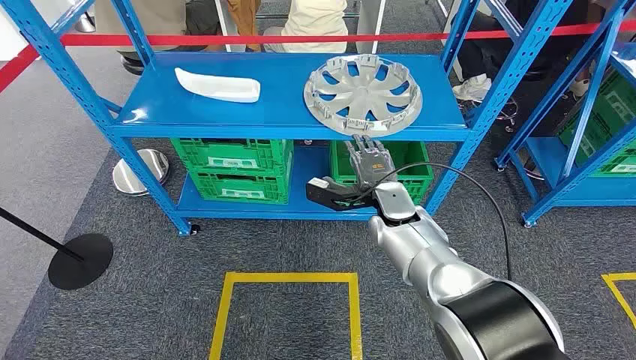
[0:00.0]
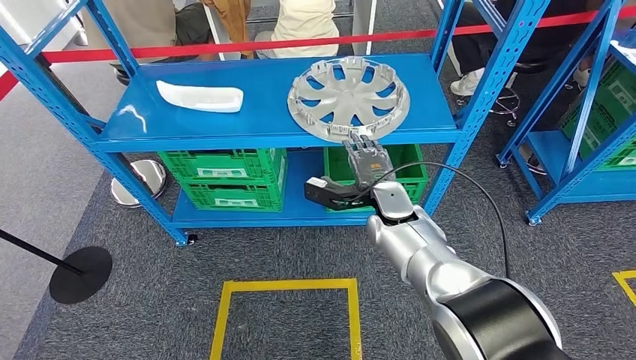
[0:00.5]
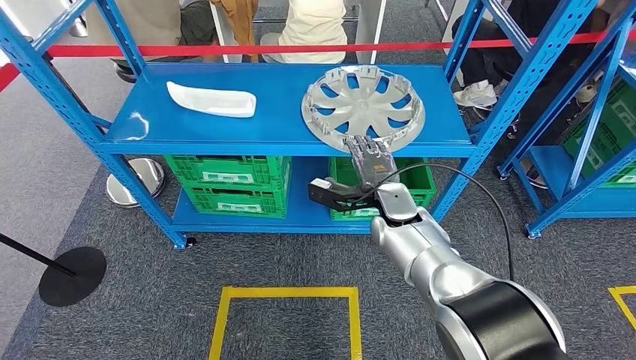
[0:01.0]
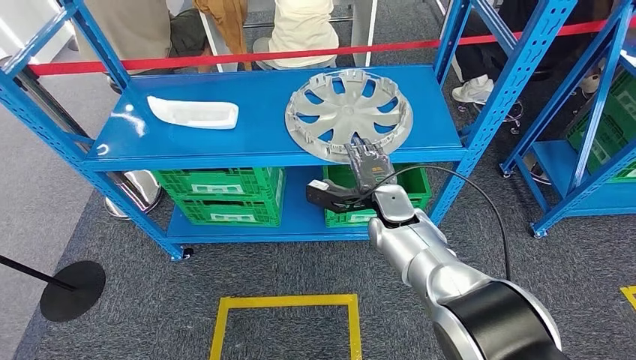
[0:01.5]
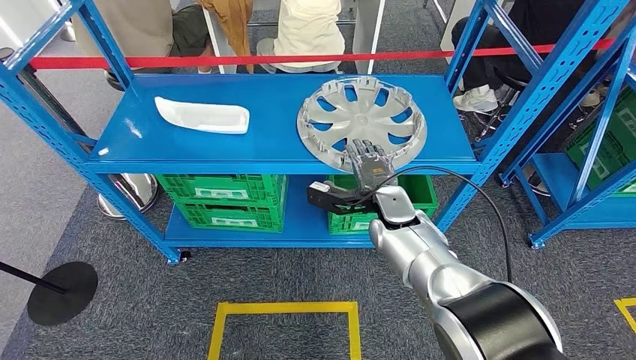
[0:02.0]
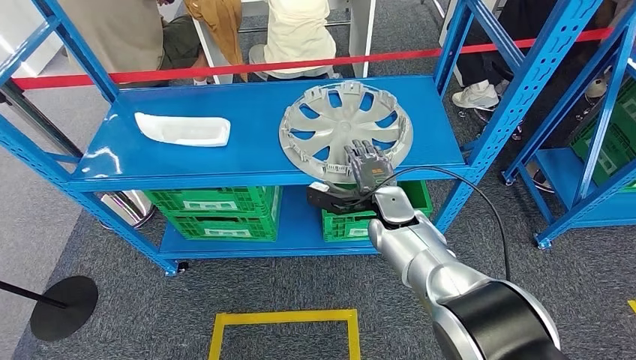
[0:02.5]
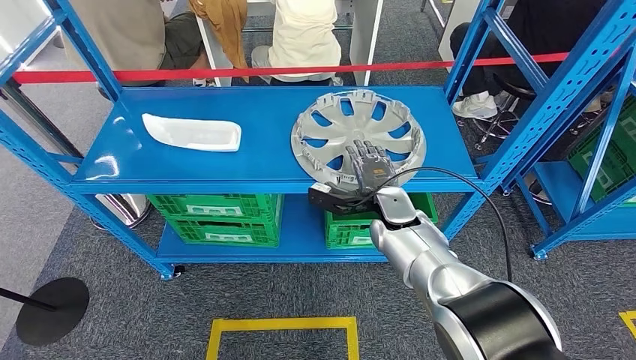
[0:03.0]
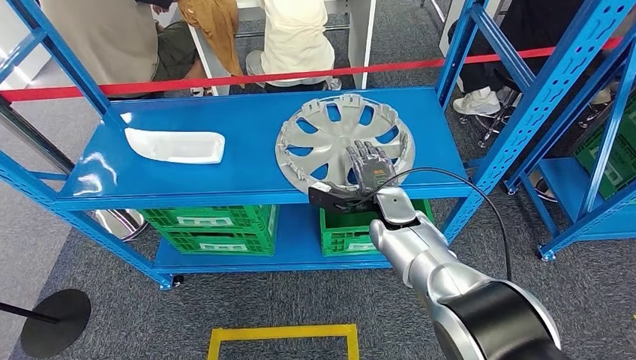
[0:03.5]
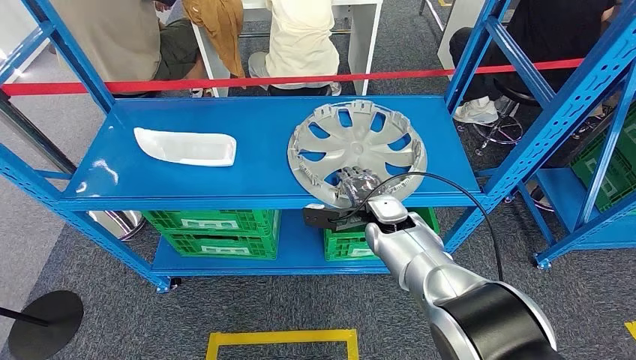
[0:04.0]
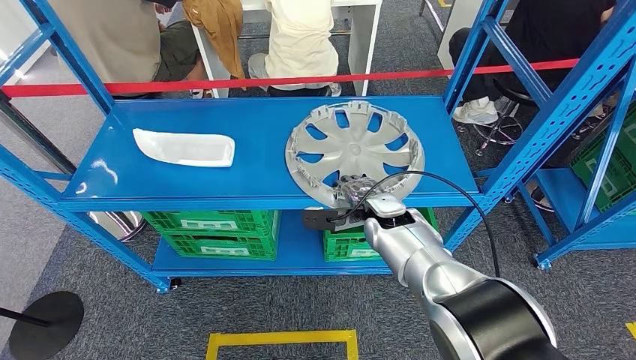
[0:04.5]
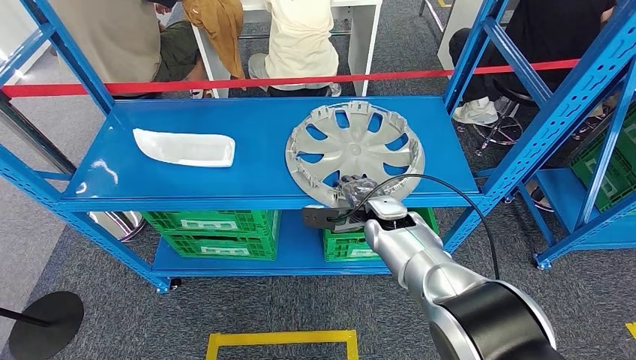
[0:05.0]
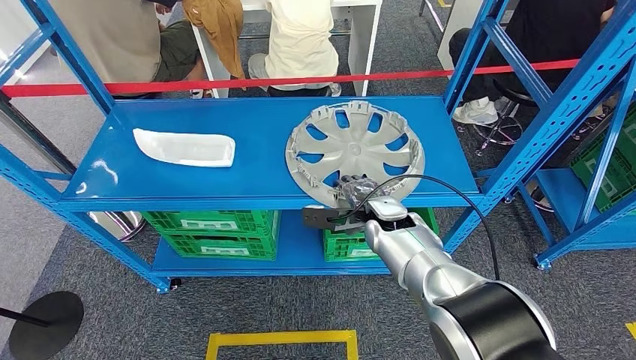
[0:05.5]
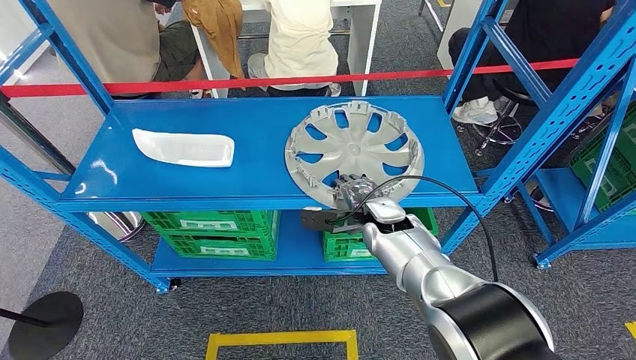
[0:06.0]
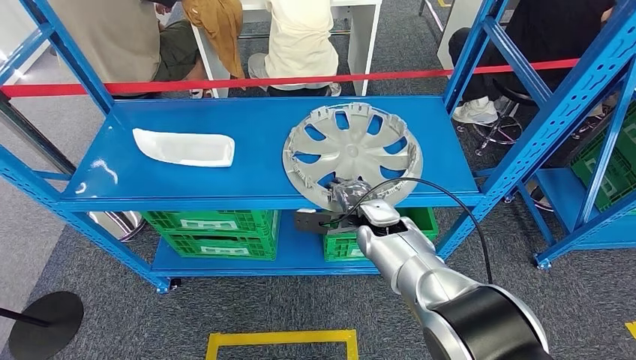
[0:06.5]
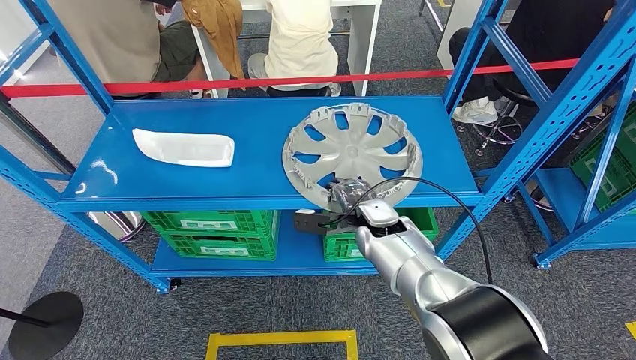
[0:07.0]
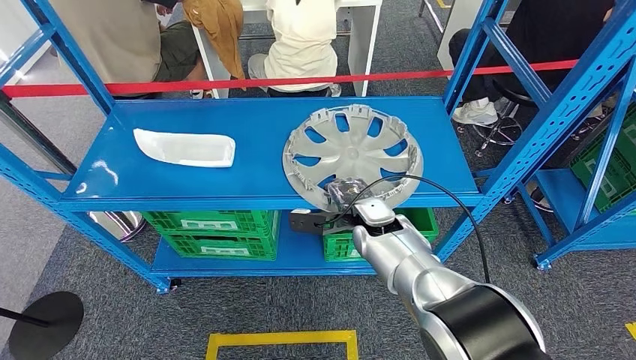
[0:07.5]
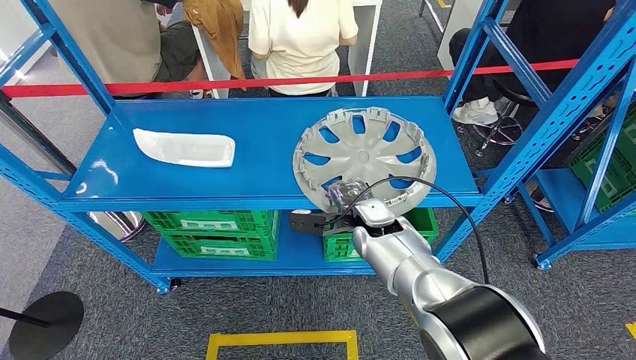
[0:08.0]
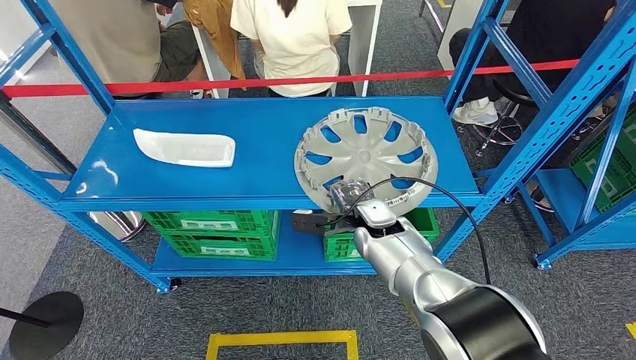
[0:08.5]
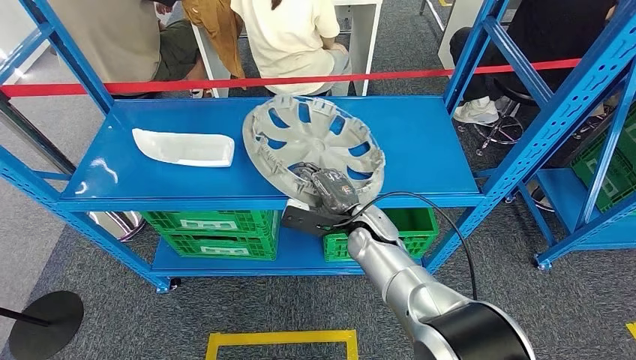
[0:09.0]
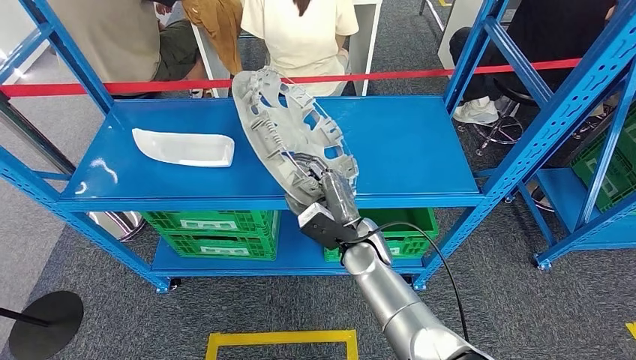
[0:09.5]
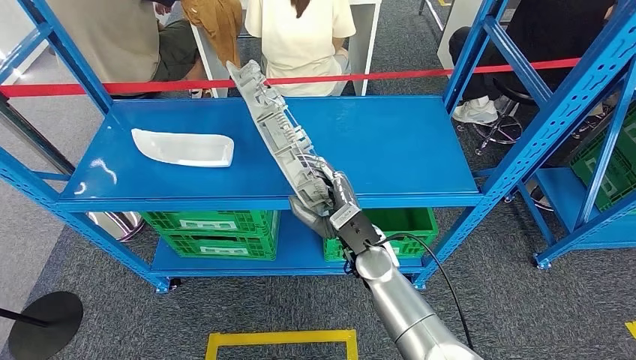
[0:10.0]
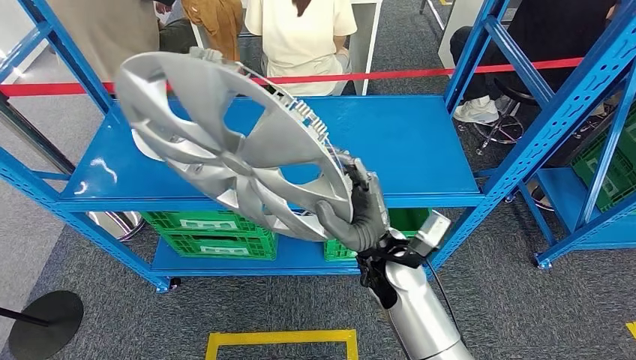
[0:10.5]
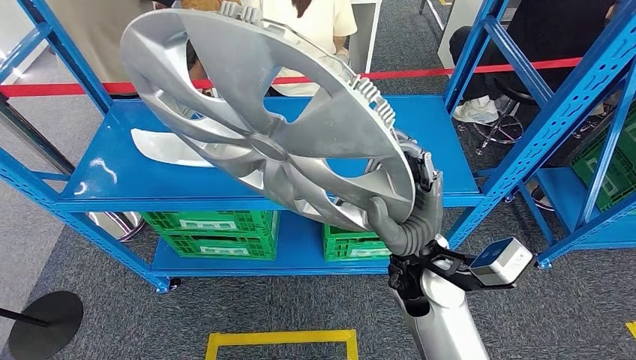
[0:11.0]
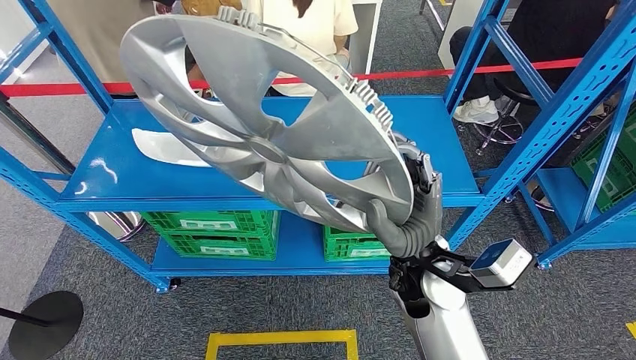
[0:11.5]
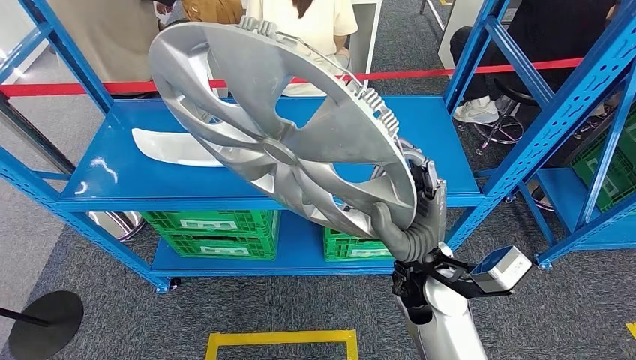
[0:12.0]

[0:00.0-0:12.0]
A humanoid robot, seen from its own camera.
0:04.0 to 0:08.0: The hands stay close to where they were, moving slightly.
0:08.0 to 0:10.0: The right hand goes some 5 cm backward.

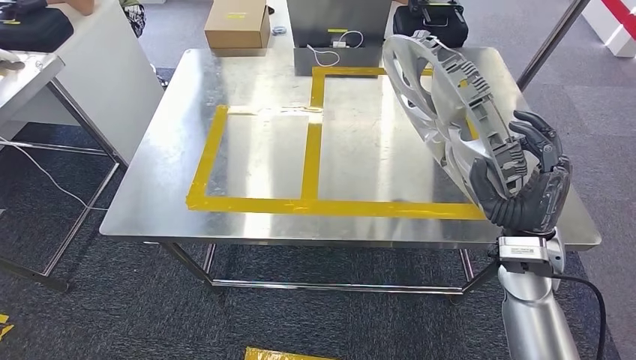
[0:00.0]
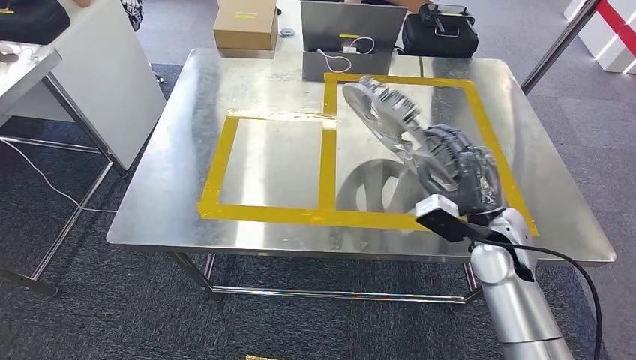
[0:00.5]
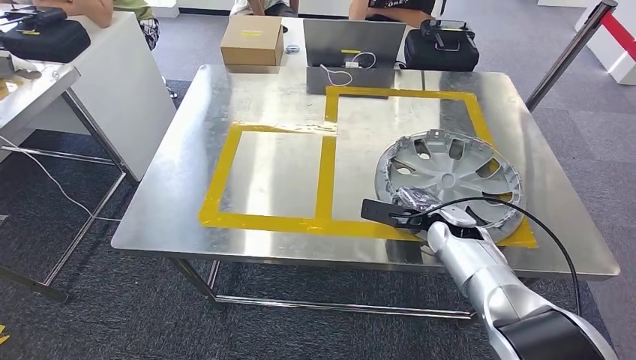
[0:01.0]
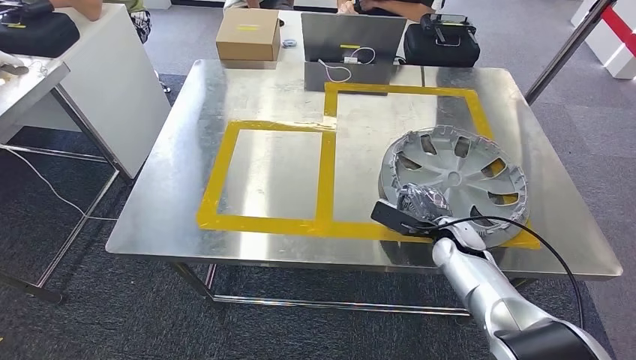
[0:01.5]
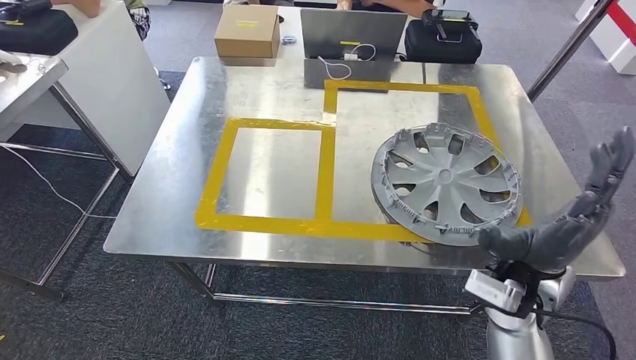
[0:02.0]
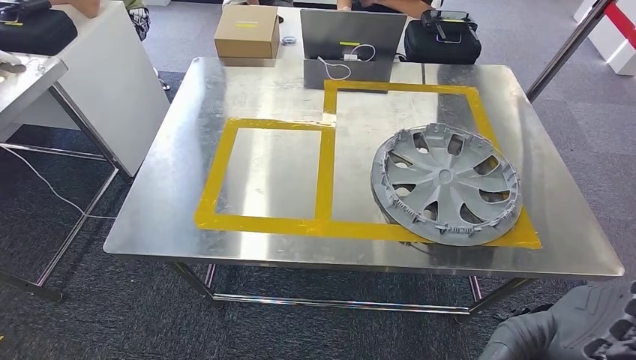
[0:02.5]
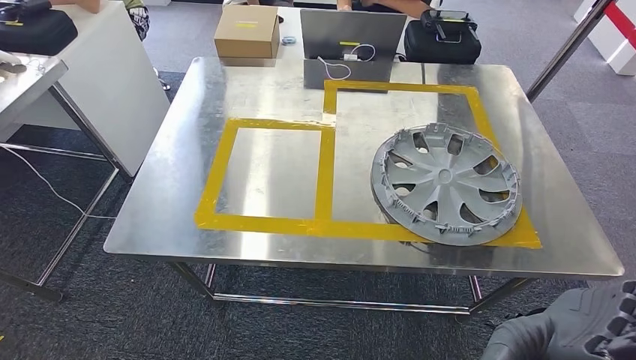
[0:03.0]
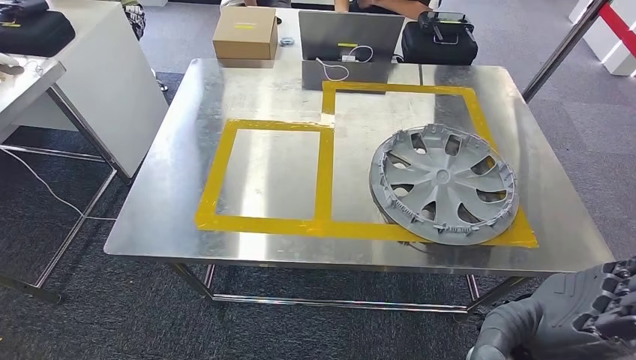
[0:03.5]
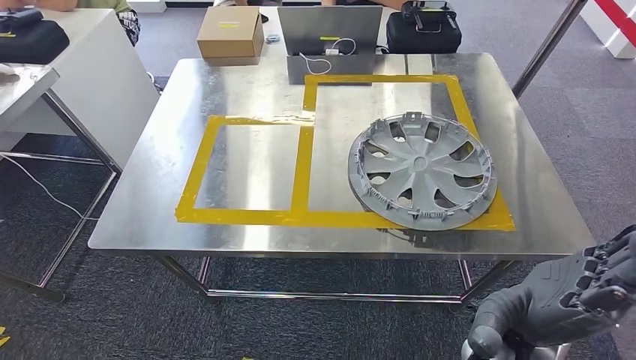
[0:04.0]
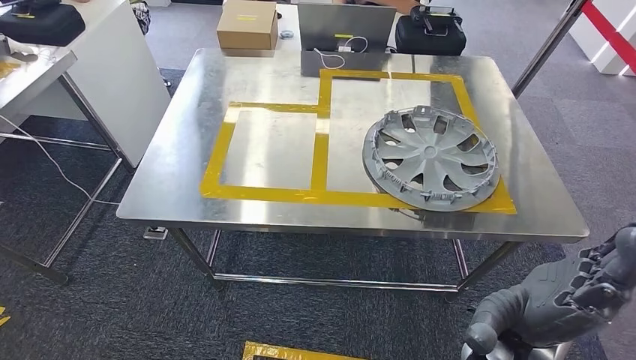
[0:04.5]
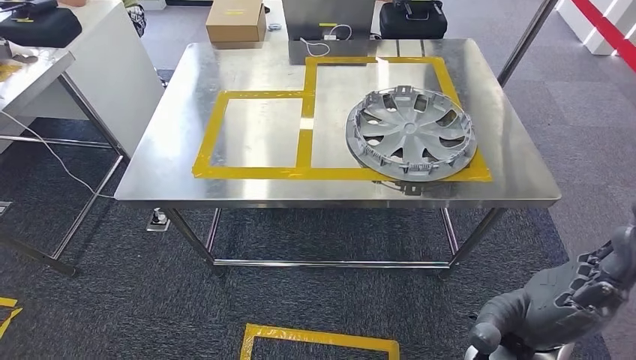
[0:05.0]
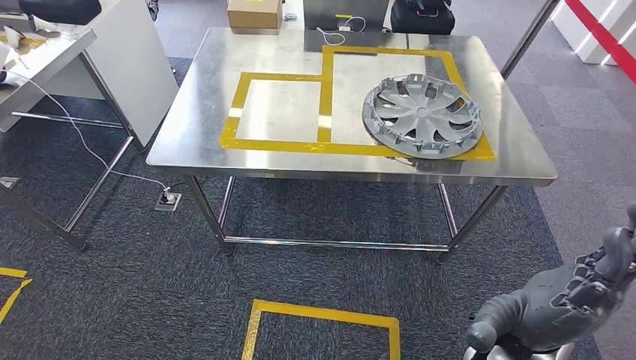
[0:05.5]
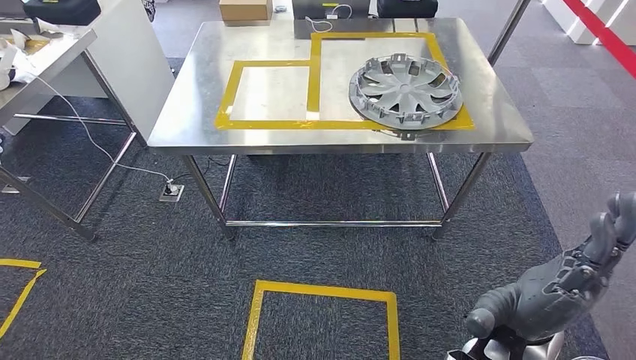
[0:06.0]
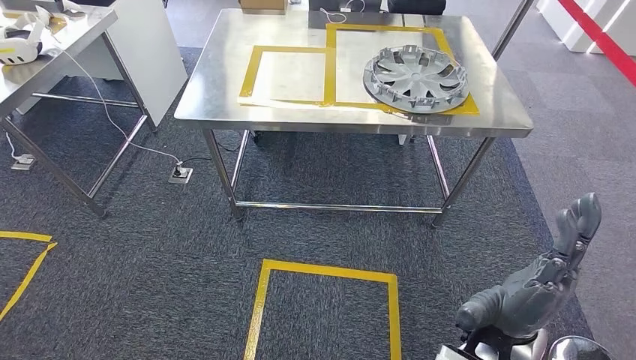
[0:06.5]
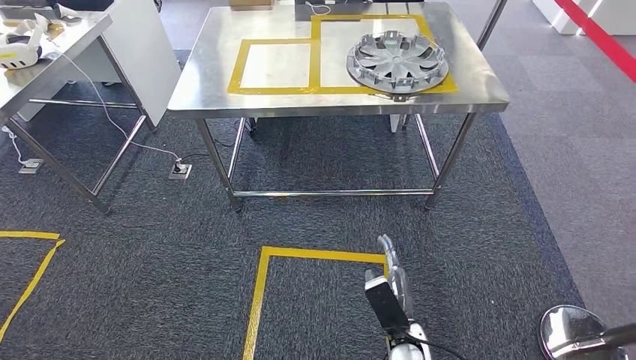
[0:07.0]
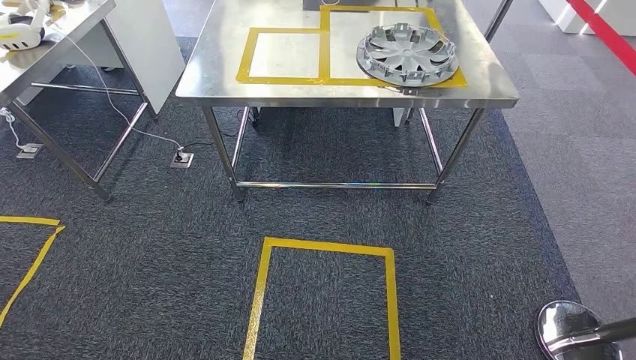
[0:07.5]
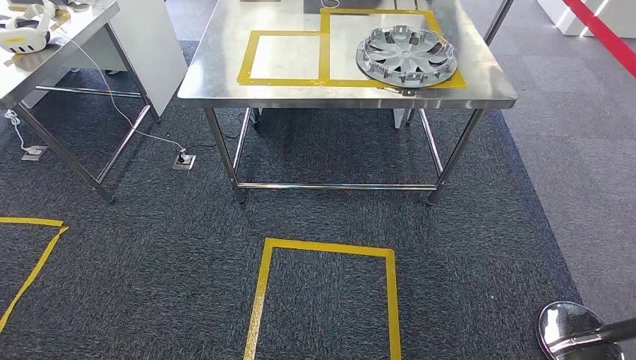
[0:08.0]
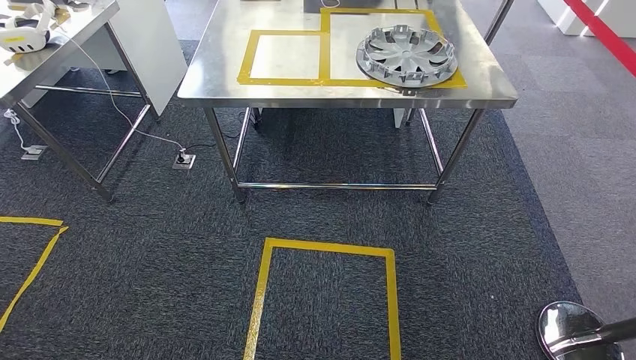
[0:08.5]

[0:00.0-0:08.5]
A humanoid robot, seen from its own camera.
Step, 0:00.5 to 0:02.0: Insert the large material into the corresponding slot on the workbench.
Step, 0:02.5 to 0:08.5: Return to the initial position at the shelf.
